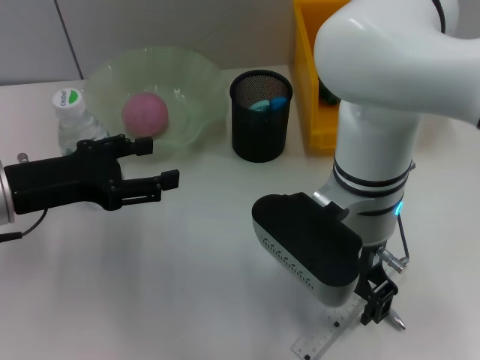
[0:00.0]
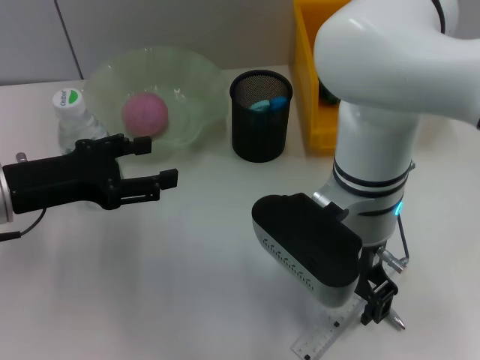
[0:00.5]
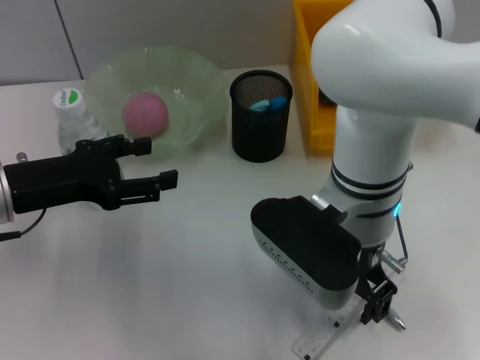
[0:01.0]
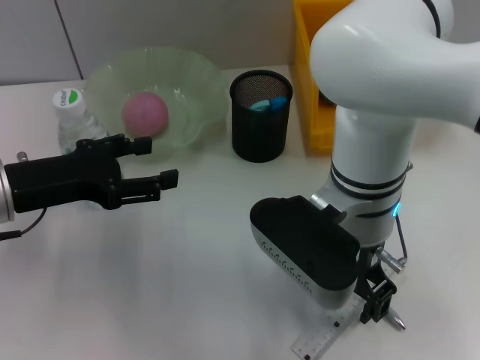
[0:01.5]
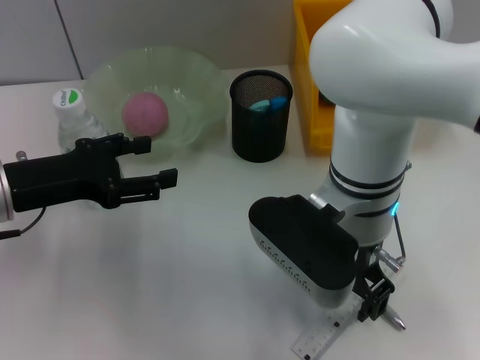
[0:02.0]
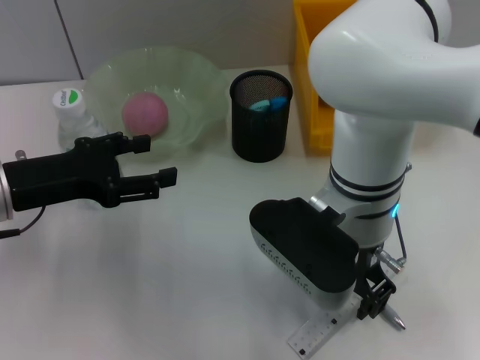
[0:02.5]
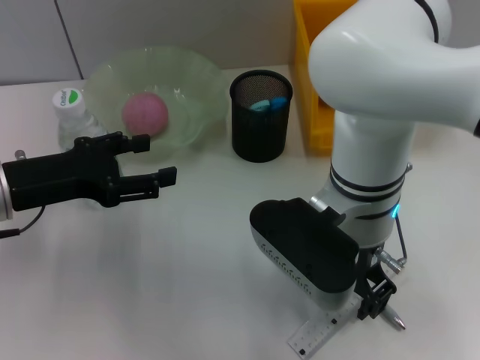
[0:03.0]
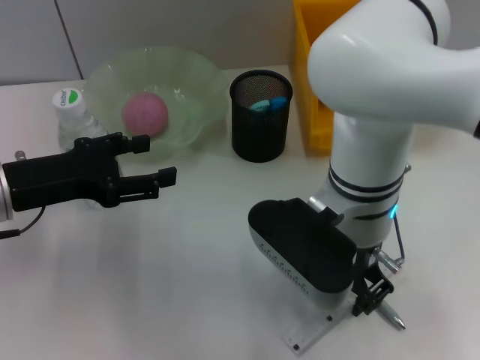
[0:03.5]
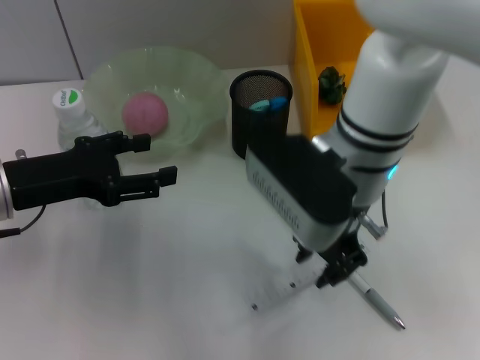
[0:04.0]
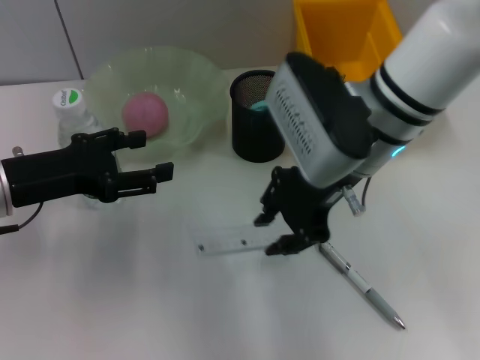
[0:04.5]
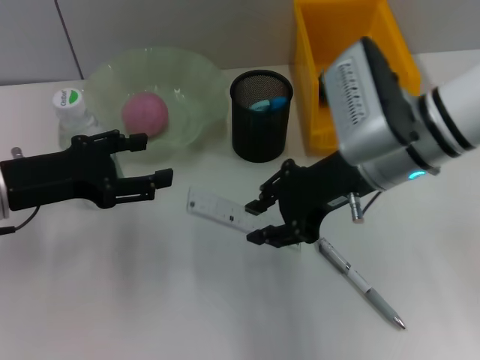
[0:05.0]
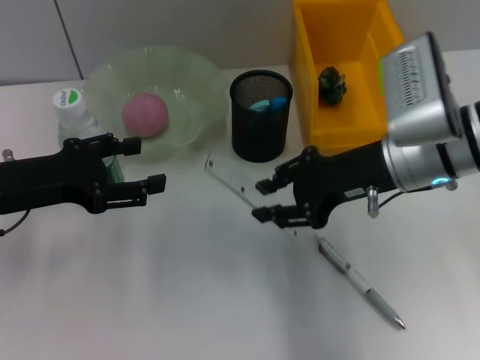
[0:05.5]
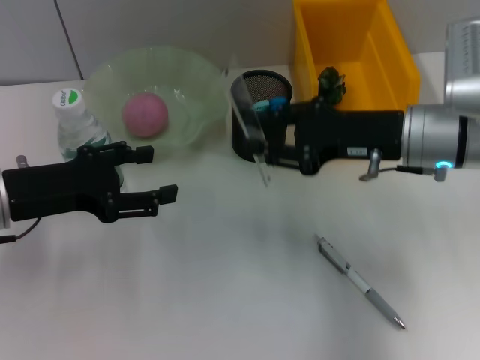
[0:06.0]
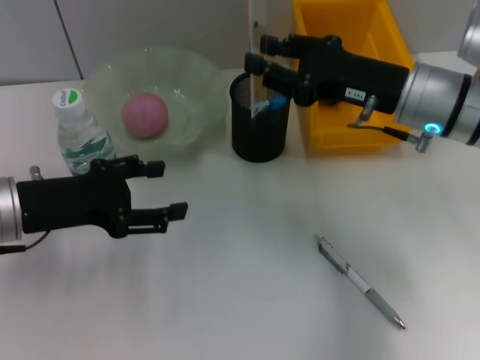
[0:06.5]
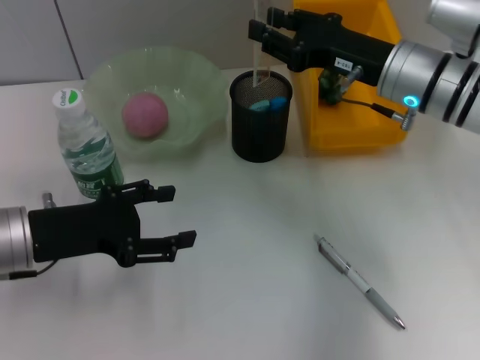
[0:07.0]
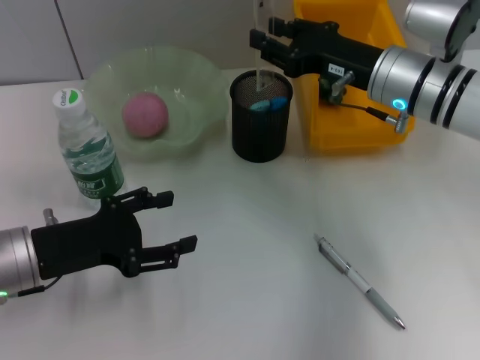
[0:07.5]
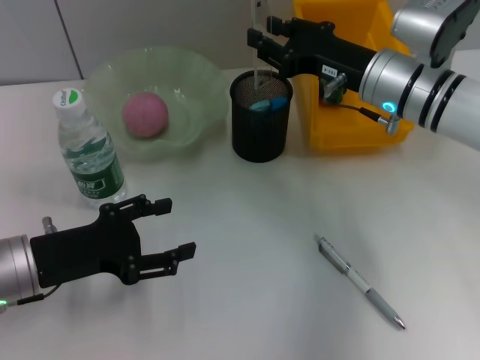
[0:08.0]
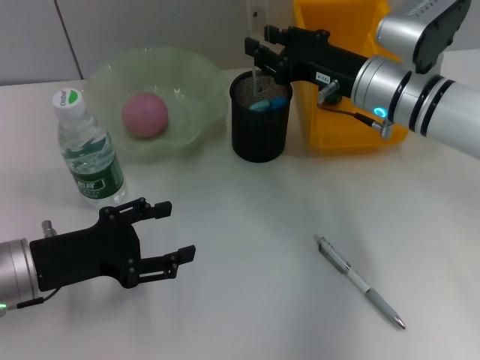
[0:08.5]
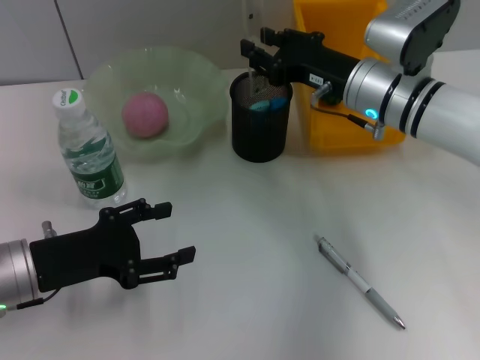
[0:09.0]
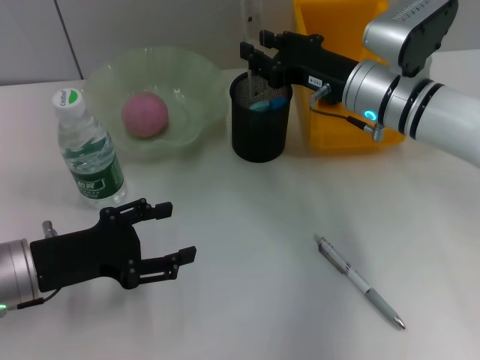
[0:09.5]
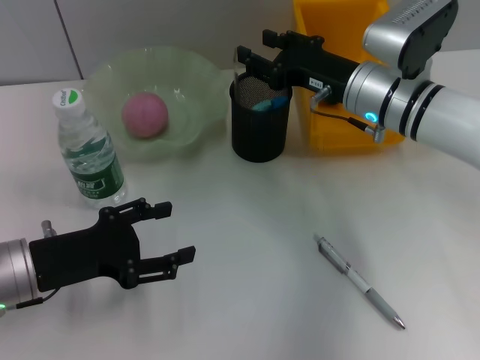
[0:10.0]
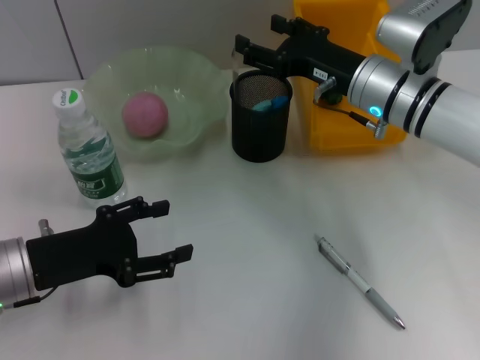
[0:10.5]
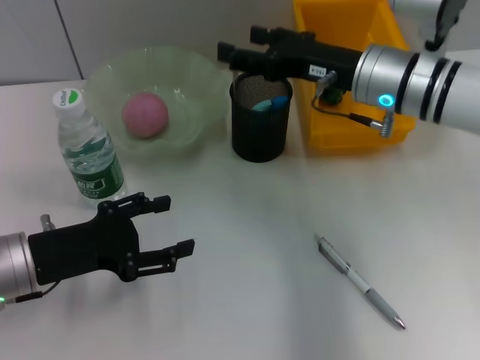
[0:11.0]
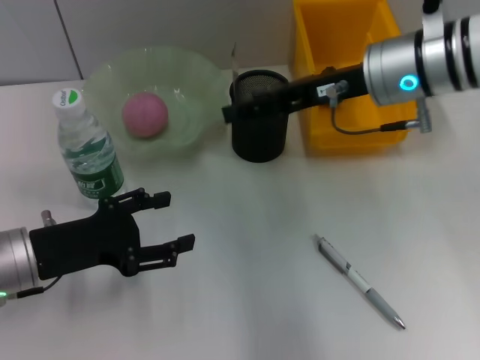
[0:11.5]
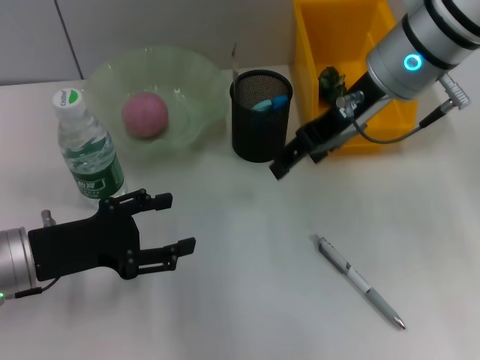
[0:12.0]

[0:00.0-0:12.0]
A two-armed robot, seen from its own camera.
Step, 0:00.0 to 0:03.0: Grab the ruler with the right hand.
Step, 0:03.5 to 0:10.0: Place the ruler into the pen holder with the right hand.
0:00.0 to 0:02.0: Neither gripper changes place.
0:04.0 to 0:06.0: The right gripper shifts about 10 cm to the right.
0:06.0 to 0:08.0: The left gripper goes some 5 cm downward; the right gripper shifts some 5 cm forward.
0:08.0 to 0:10.0: The grippers make only small movements.
0:10.0 to 0:12.0: The right gripper shifts some 10 cm upward, and opens its fingers.

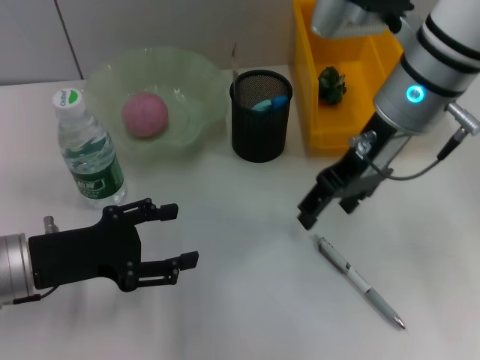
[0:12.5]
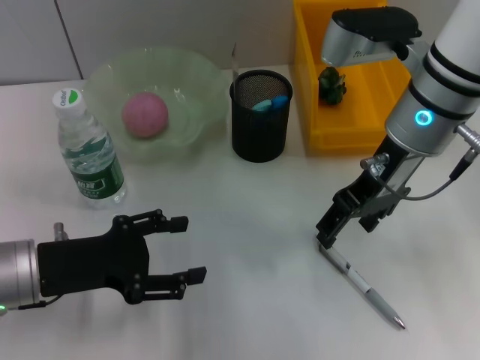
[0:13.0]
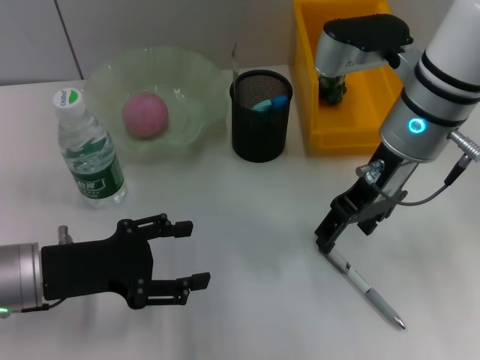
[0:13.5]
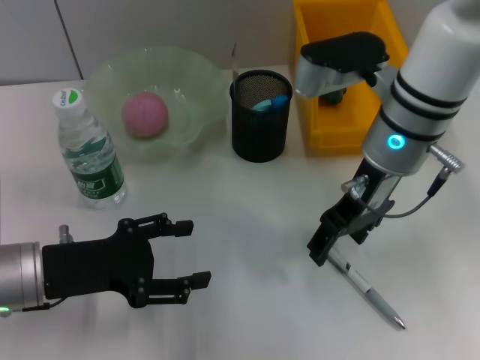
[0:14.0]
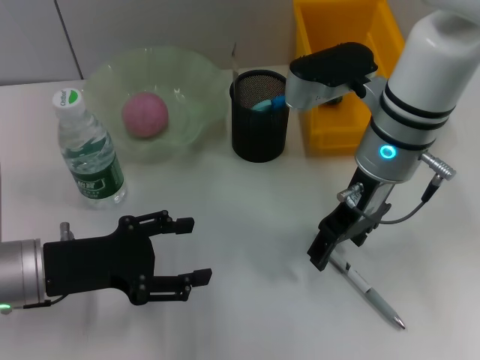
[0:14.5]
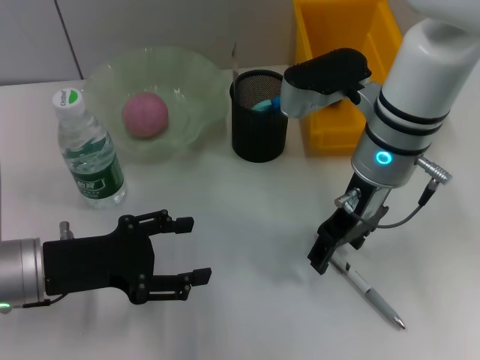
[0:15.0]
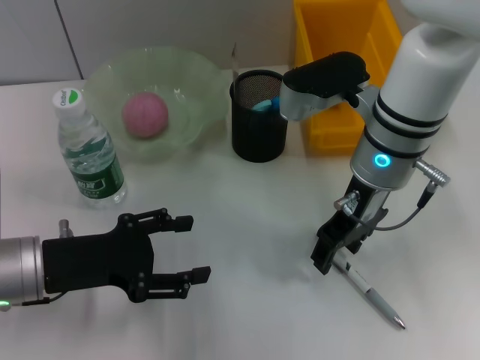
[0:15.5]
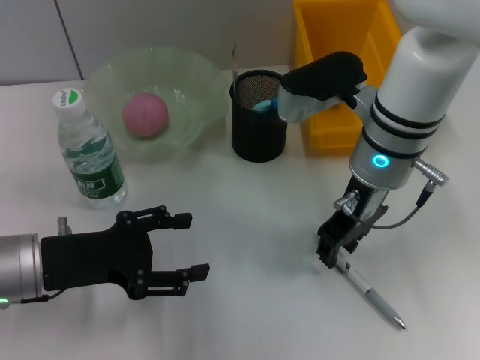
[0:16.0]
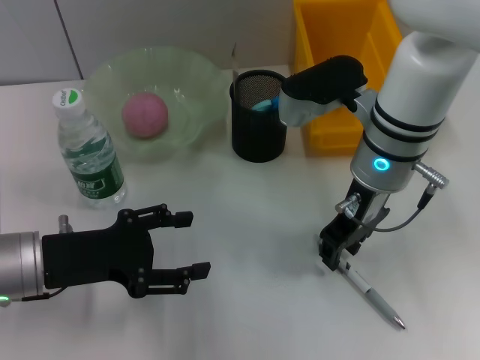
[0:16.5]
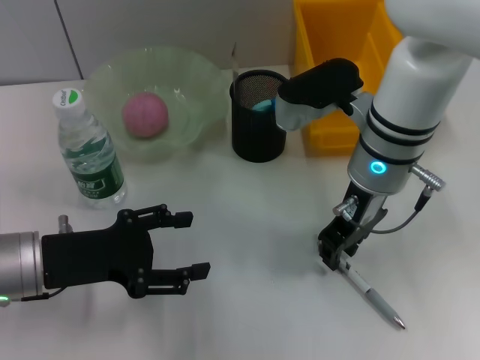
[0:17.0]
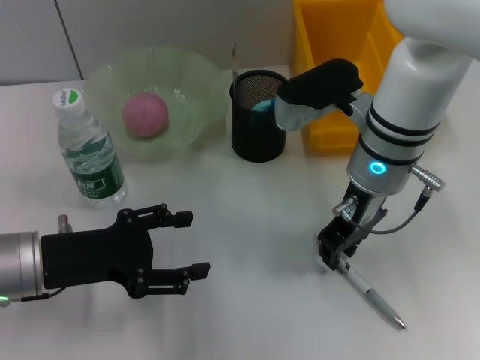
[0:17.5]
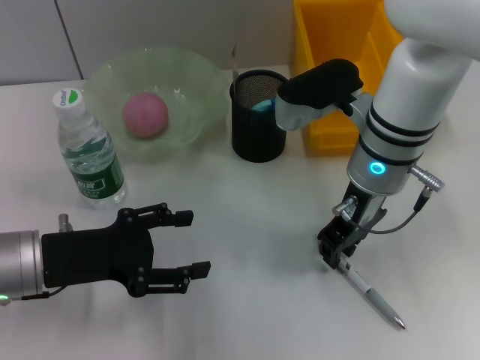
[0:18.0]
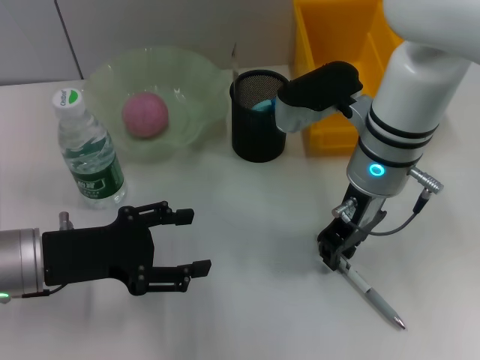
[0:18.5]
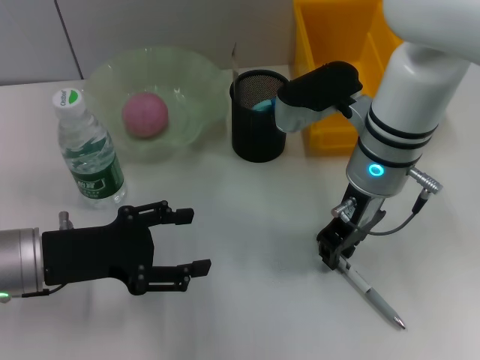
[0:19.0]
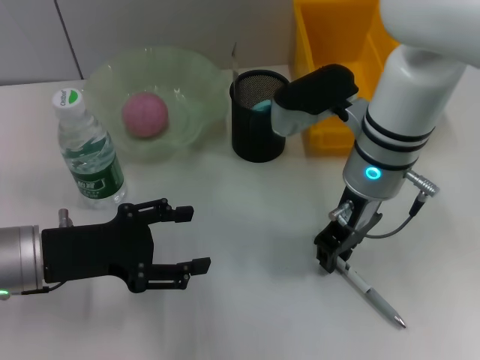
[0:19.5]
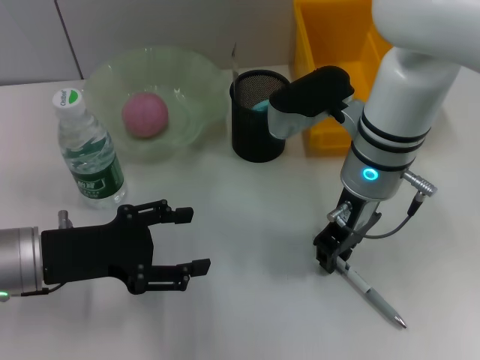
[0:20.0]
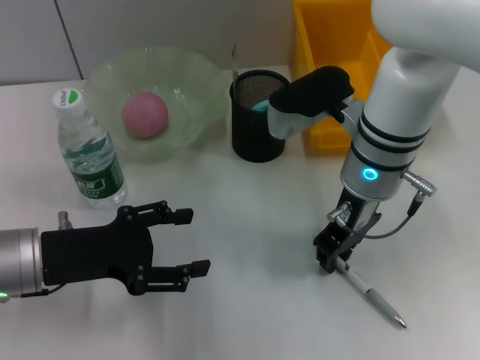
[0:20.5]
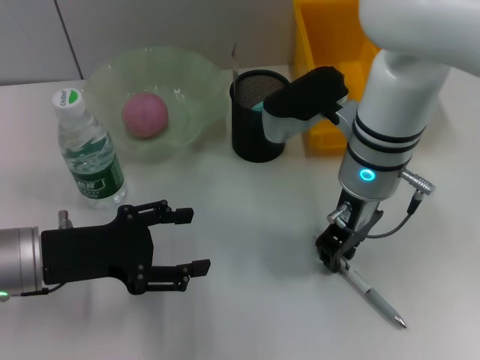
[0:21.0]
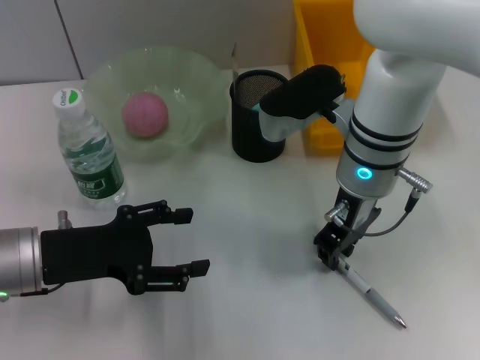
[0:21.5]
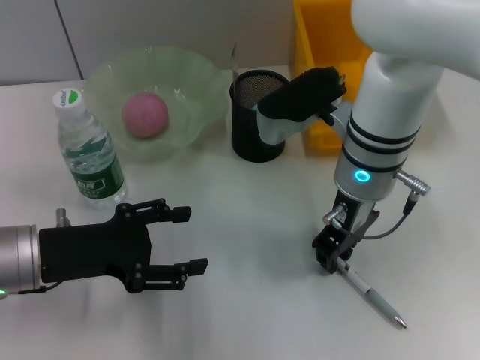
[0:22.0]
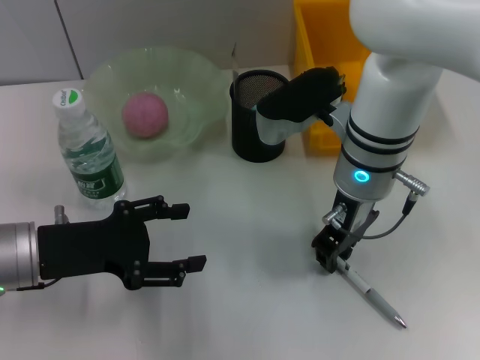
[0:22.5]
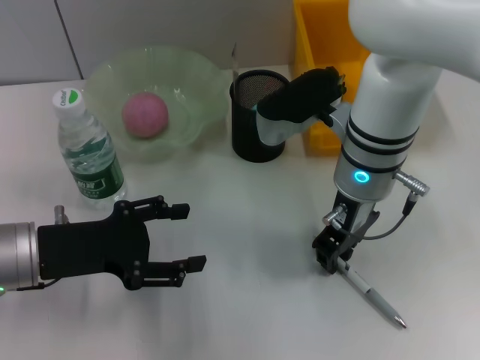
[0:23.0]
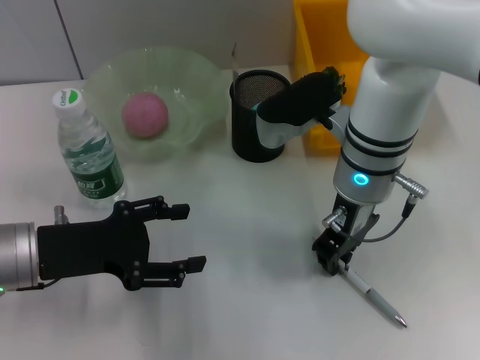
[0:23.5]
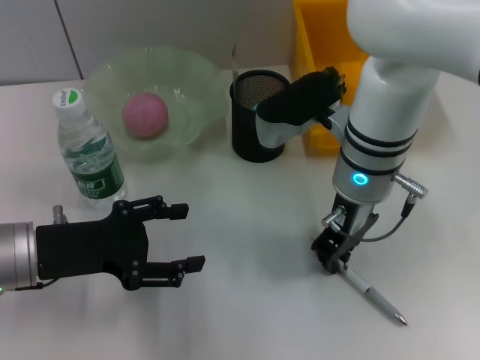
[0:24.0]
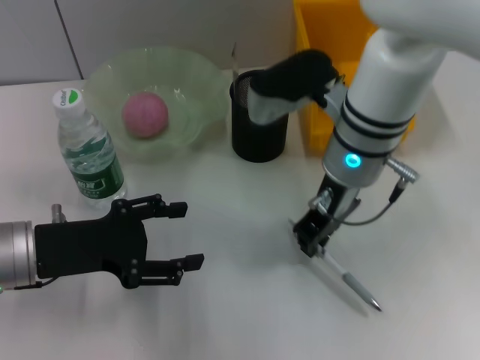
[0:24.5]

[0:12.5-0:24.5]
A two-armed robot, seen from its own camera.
Step, 0:12.5 to 0:24.0: Grab the gray spring-action pen with the right hand.
0:12.5 to 0:14.5: The right gripper changes place by approximately 5 cm.
0:14.5 to 0:16.5: The right gripper closes its fingers.
0:16.5 to 0:20.5: Neither gripper changes place.
0:20.5 to 0:22.5: Both grippers stay about where they are.
0:22.5 to 0:24.5: The grippers make only small movements.

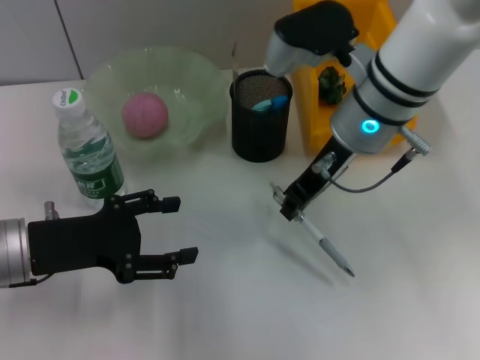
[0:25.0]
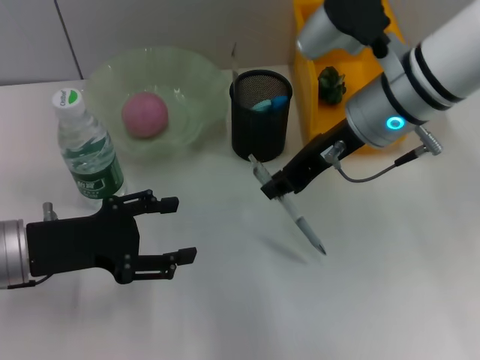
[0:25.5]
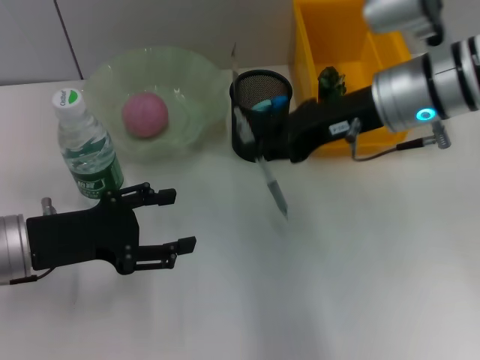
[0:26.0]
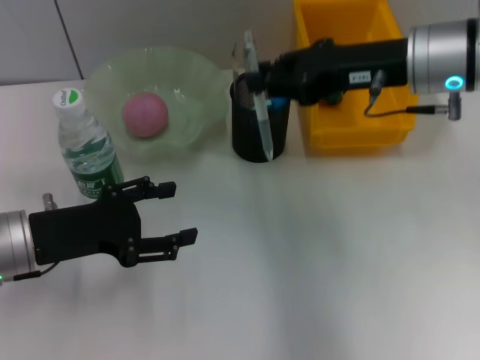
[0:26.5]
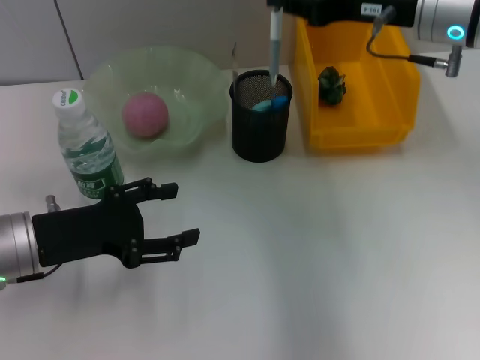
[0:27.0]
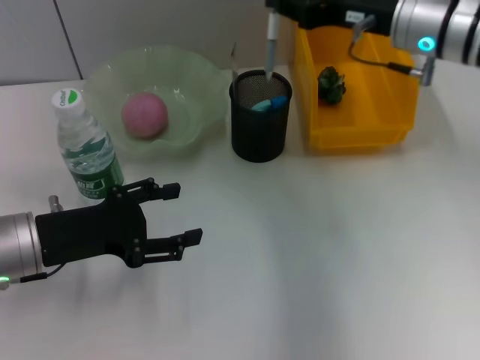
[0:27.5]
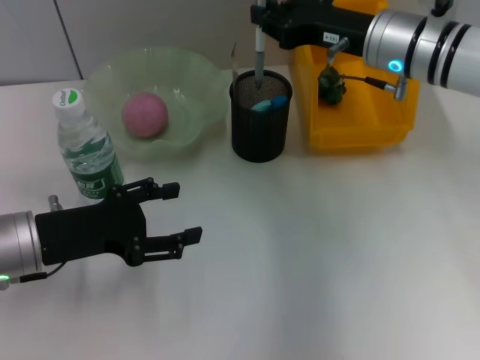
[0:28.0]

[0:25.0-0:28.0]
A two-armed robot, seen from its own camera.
0:25.0 to 0:26.5: The right gripper is displaced to the right by roughly 5 cm.
0:26.5 to 0:28.0: The right gripper travels forward by approximately 5 cm.
